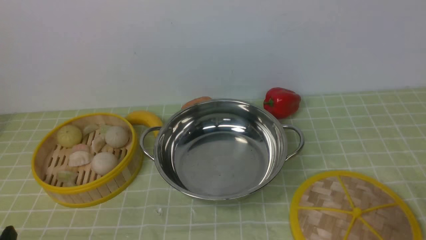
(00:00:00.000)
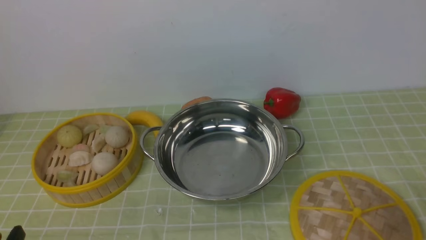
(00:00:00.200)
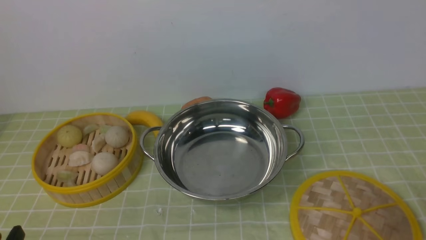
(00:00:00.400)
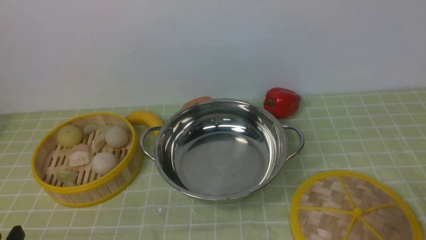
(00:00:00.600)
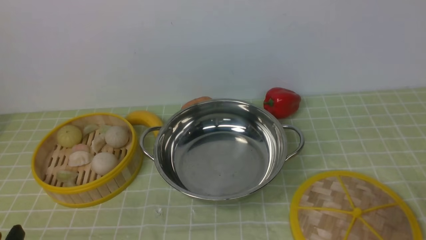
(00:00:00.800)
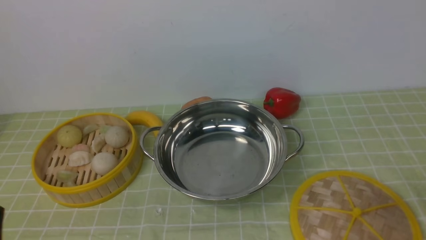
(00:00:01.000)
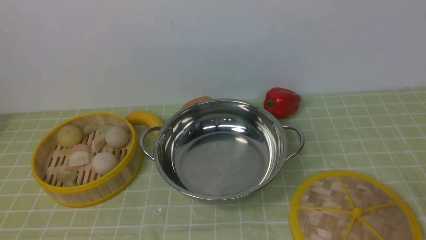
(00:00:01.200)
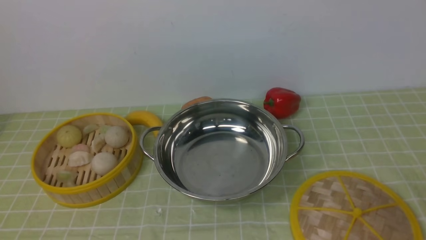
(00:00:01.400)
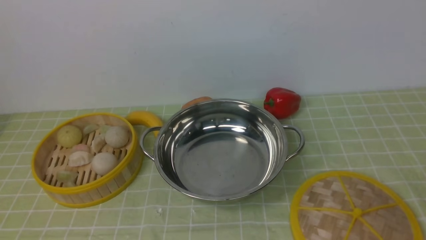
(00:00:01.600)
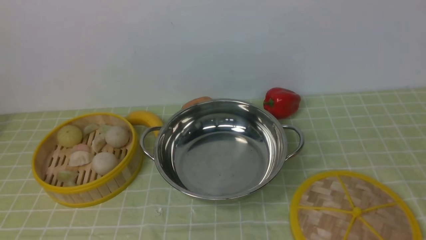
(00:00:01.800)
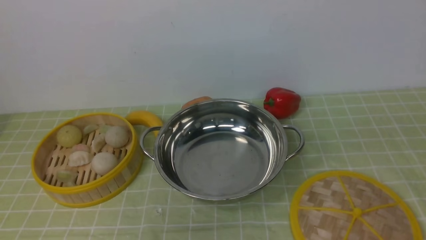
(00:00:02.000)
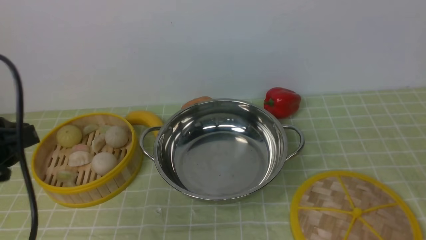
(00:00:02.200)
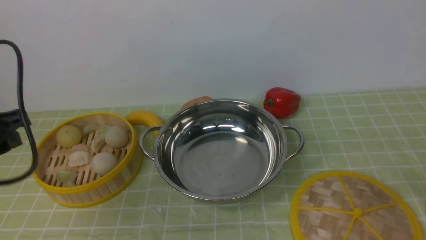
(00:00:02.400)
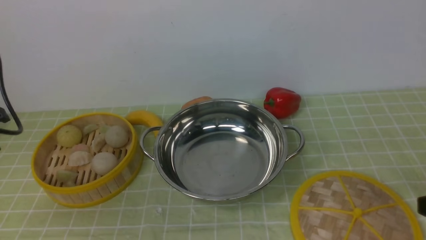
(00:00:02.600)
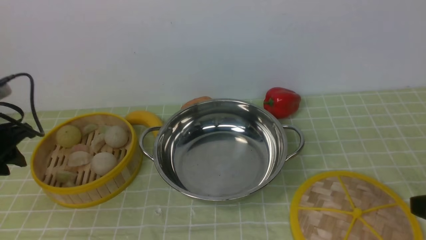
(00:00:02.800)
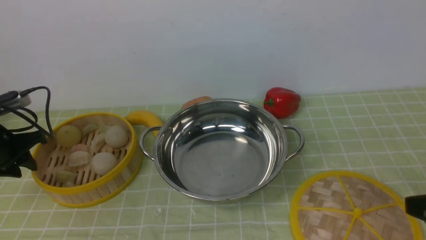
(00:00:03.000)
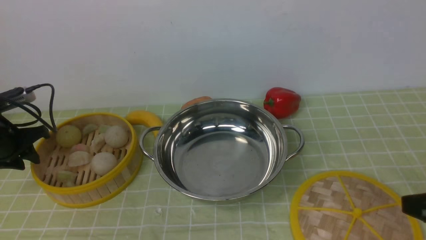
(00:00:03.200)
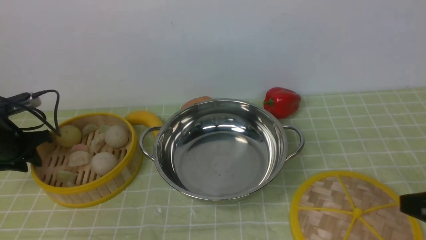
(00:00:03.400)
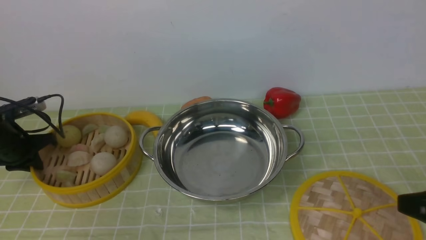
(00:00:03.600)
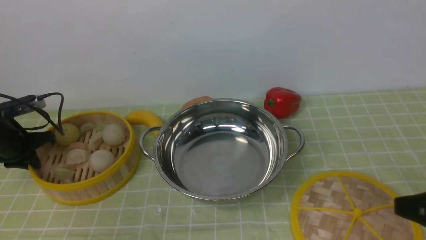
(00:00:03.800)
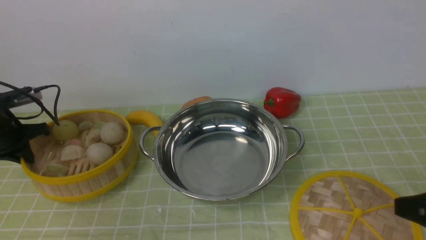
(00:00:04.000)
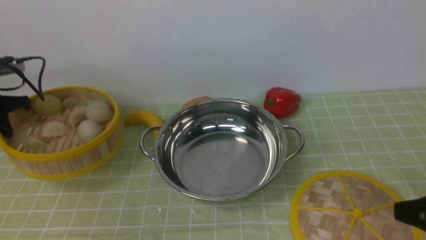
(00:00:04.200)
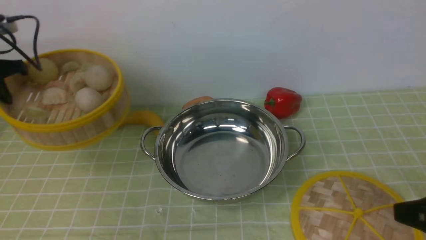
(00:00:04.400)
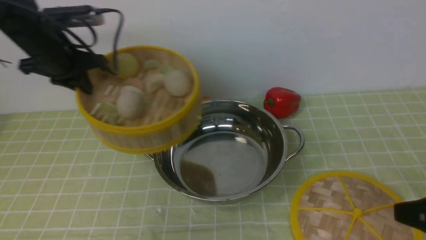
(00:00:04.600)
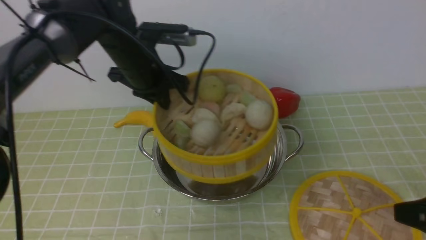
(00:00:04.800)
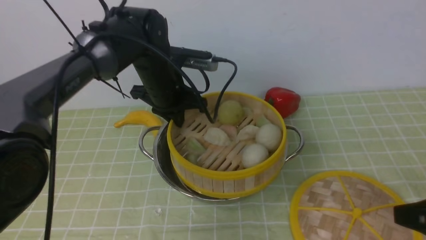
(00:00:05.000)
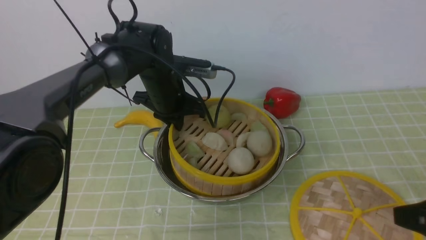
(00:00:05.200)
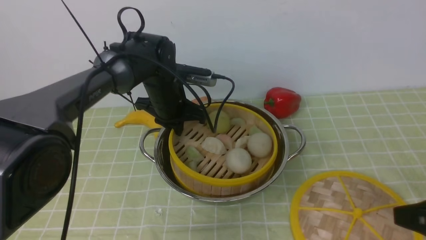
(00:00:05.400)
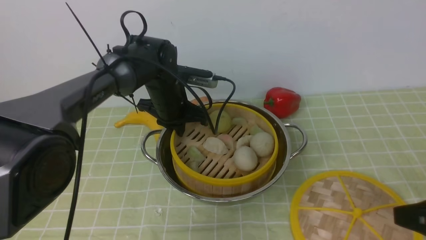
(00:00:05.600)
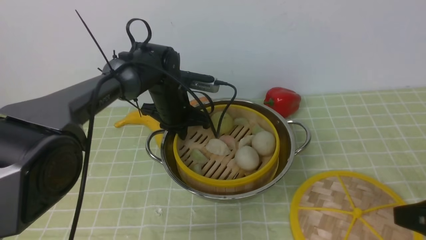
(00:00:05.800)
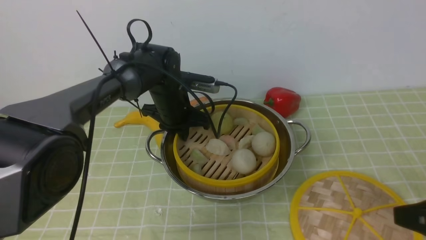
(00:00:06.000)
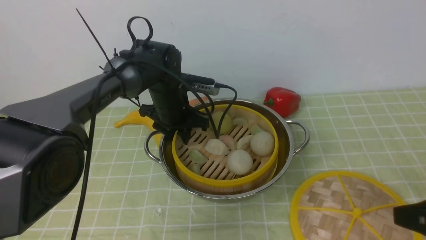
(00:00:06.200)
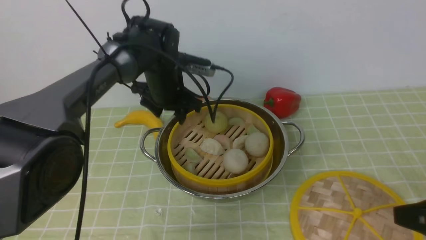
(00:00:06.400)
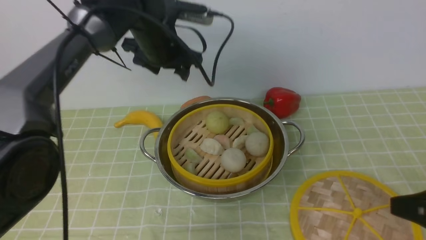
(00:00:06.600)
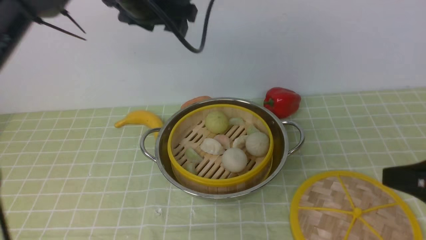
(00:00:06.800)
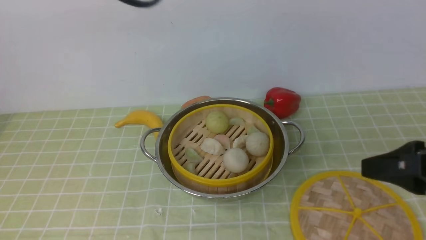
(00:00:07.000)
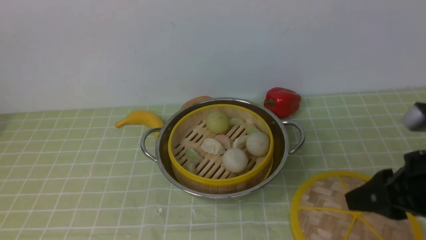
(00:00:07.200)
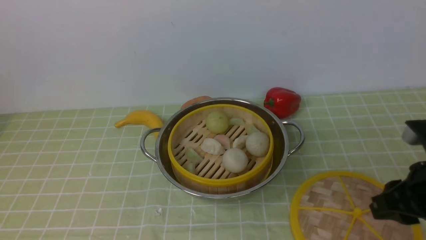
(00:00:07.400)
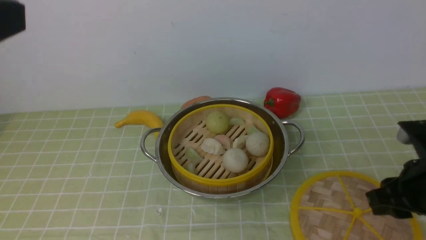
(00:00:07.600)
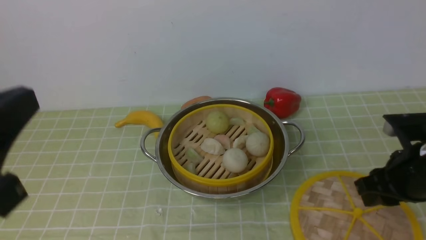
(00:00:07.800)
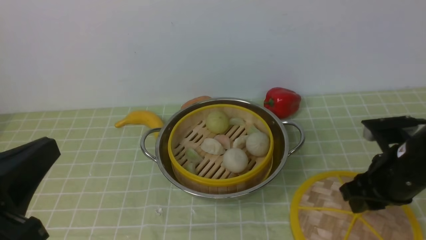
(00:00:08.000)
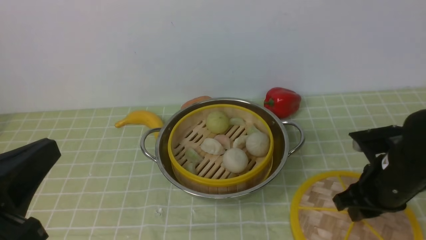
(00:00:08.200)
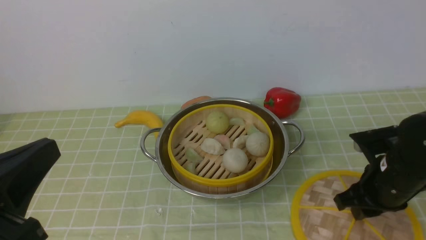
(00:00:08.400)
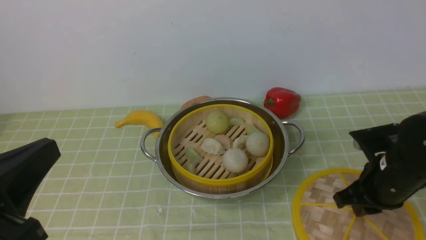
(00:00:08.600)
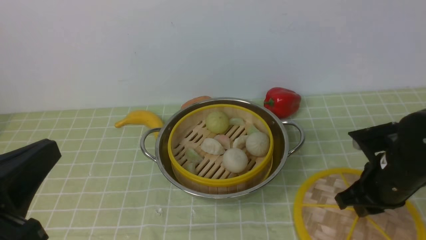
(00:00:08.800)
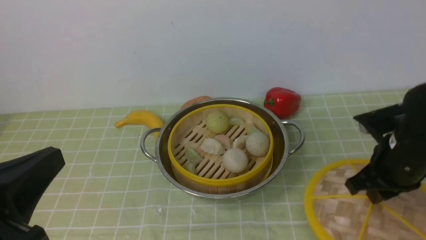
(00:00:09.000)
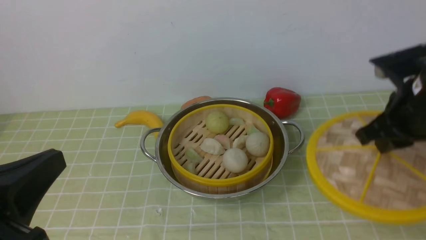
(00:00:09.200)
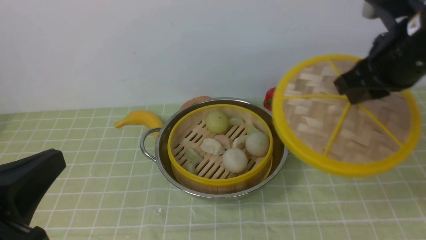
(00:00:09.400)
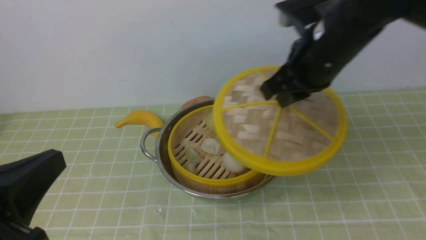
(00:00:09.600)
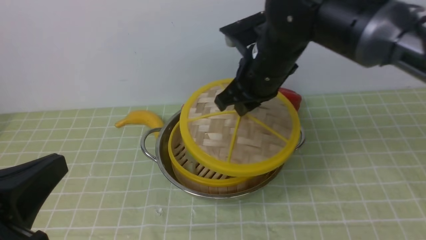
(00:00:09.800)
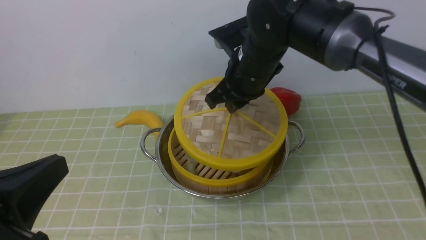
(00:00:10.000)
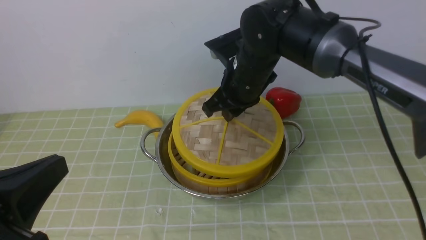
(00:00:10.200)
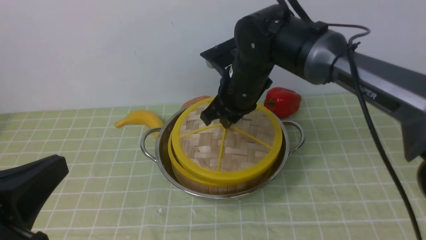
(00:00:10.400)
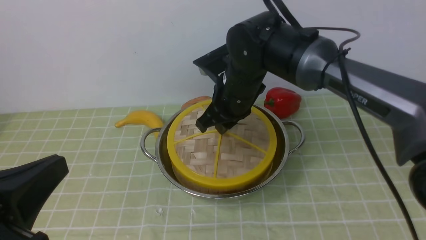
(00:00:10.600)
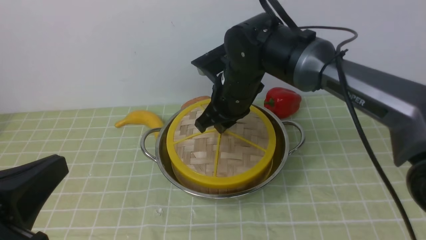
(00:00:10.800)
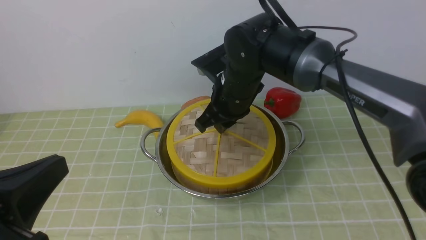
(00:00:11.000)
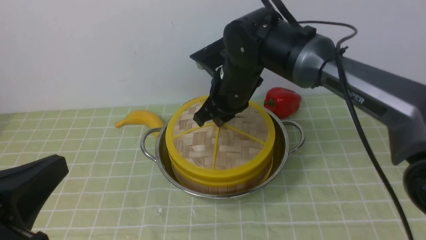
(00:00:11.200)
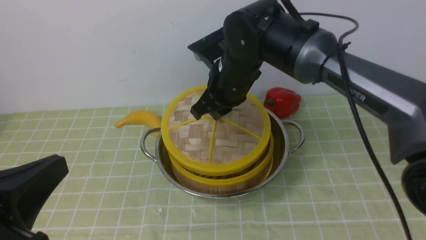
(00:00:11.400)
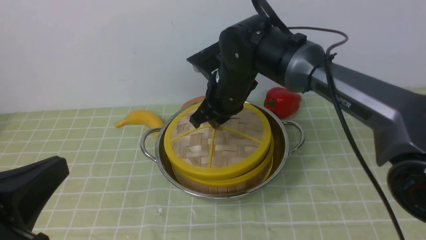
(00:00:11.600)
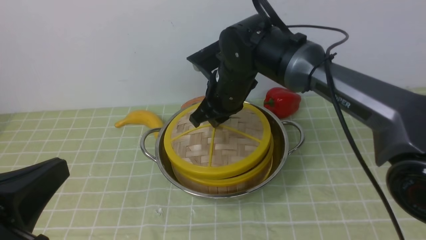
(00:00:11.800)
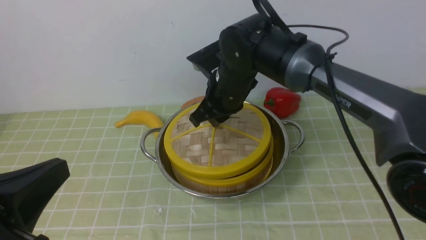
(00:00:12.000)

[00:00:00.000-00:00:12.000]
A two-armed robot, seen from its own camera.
Task of the whole recording: place the steamer in the pot on the green tablecloth, and put the lid on the steamer.
Step, 00:00:00.000 to 00:00:04.400: use the left arm to lift the steamer closest to it.
Step, 00:00:04.600 to 00:00:06.800: use the left arm to put the steamer into the iron steamer pot in the middle.
Step, 00:00:07.000 to 00:00:09.000: use the right arm to lift the lid of the steamer.
00:00:01.600 to 00:00:03.000: The left gripper moves forward, about 30 cm.
00:00:03.000 to 00:00:04.400: The left gripper travels upward and forward by about 10 cm, and closes its fingers.
00:00:04.400 to 00:00:06.000: The left gripper shifts approximately 25 cm to the right and downward.
00:00:06.000 to 00:00:07.600: The left gripper shifts roughly 40 cm backward and upward, and closes up, while the right gripper is displaced forward by approximately 10 cm.
00:00:07.600 to 00:00:09.000: The left gripper heads downward, covering some 15 cm. The right gripper shifts roughly 5 cm forward.
00:00:09.000 to 00:00:10.400: The right gripper heads to the left and forward, covering about 25 cm.
00:00:10.400 to 00:00:12.000: The grippers move only a little.

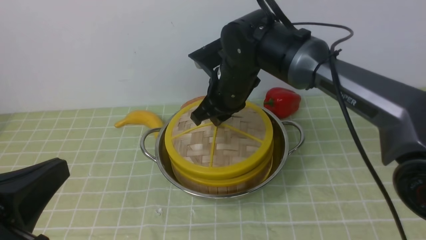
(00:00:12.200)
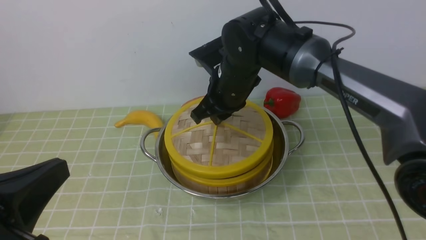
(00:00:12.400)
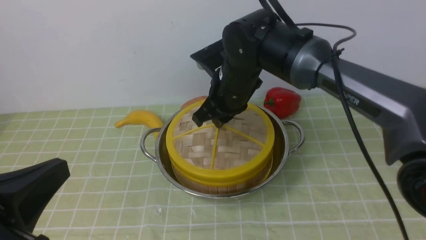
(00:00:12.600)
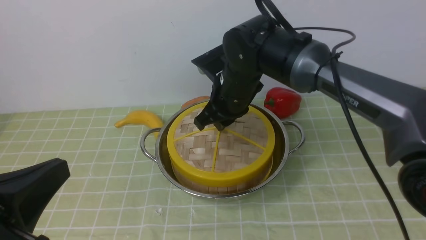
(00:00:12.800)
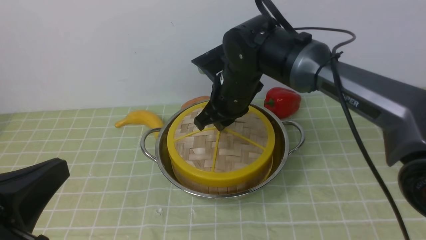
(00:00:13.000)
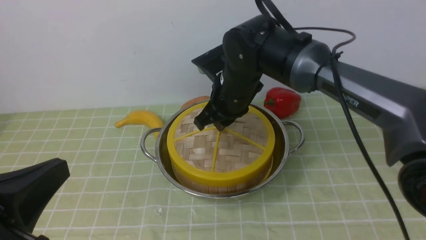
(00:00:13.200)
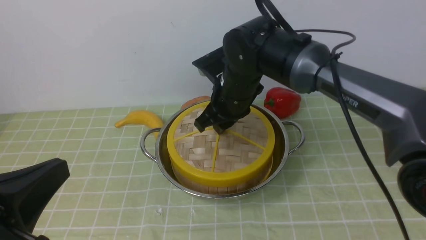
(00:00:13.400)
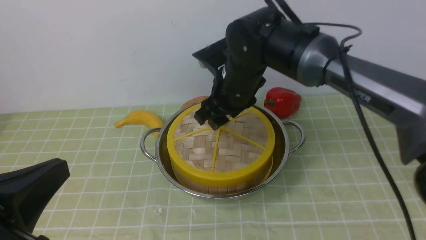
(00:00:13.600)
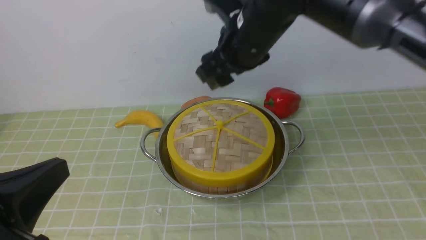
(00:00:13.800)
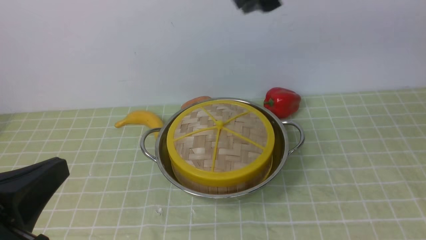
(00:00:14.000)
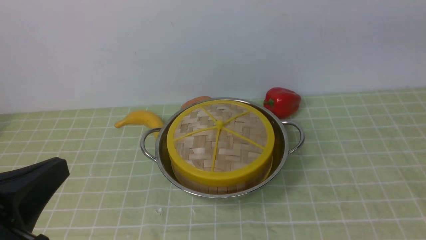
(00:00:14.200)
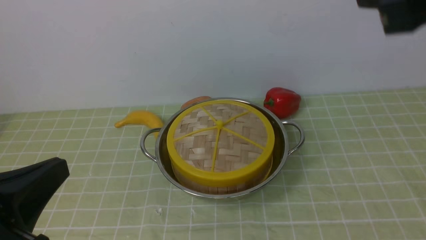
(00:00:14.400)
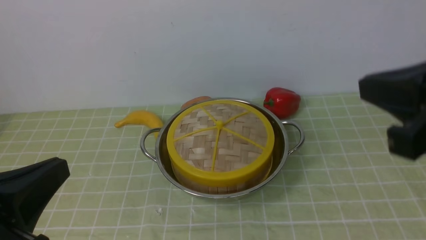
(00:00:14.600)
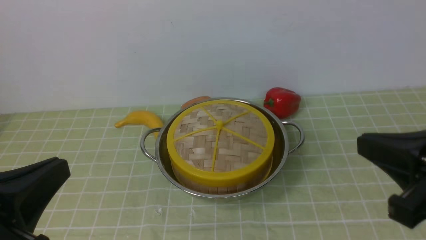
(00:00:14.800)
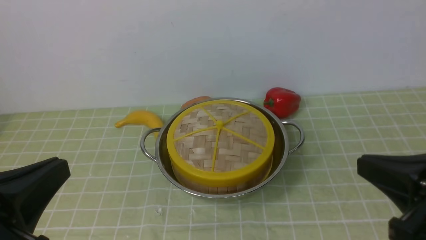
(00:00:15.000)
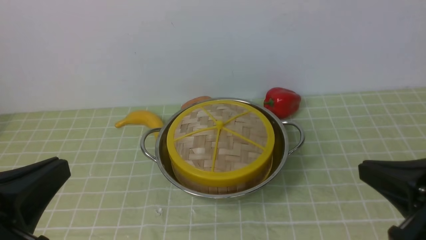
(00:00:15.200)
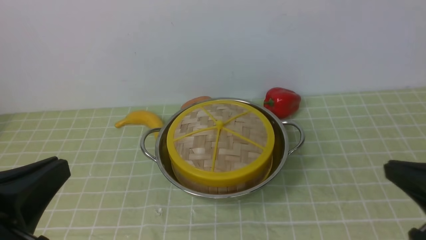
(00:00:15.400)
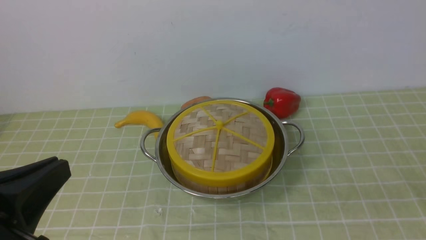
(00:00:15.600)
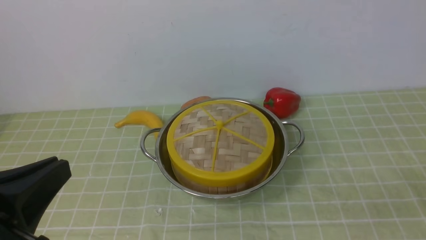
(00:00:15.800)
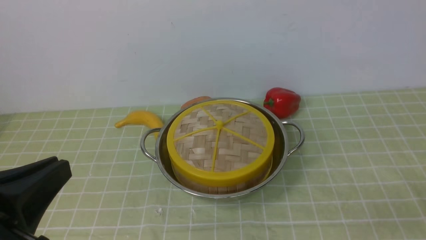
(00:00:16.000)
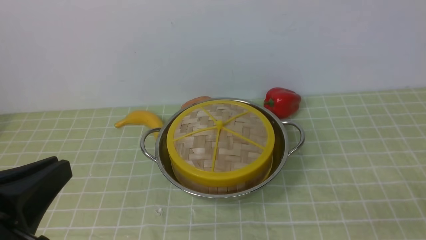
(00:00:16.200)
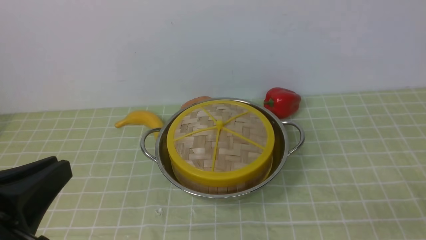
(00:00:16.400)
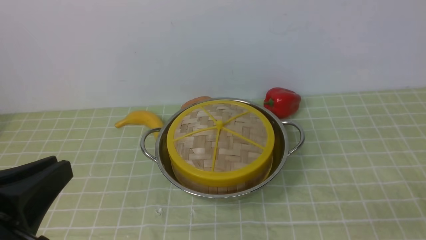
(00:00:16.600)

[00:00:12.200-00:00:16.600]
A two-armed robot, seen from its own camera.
Task of the whole recording: place the steamer in the pot on the green tablecloth, and put the lid on the steamer.
00:00:12.200 to 00:00:13.600: The right gripper opens.
00:00:13.600 to 00:00:15.200: The right gripper goes approximately 35 cm backward and to the right, and closes up.
00:00:15.200 to 00:00:16.600: The right gripper heads downward, to the right and backward, covering approximately 15 cm, and opens.
